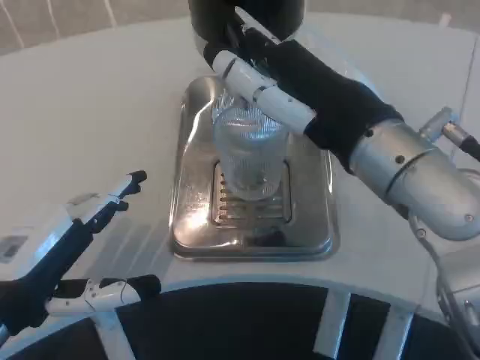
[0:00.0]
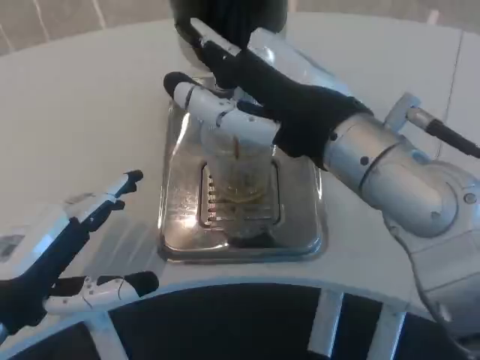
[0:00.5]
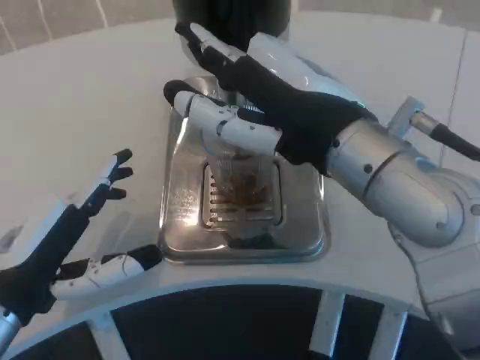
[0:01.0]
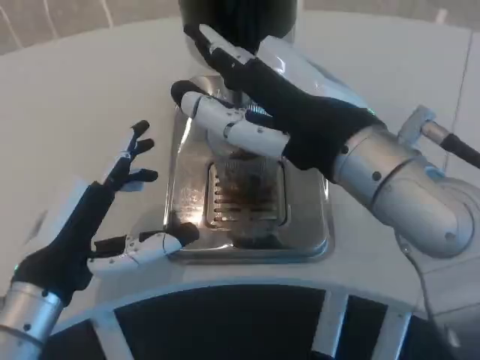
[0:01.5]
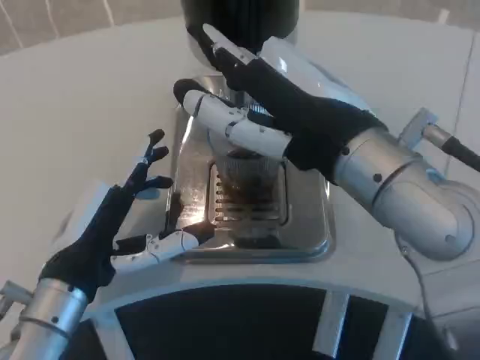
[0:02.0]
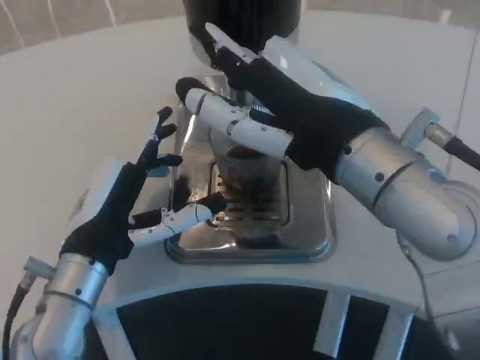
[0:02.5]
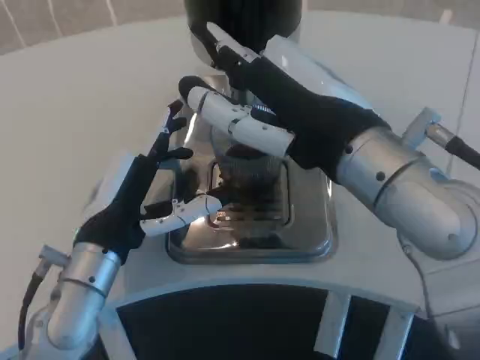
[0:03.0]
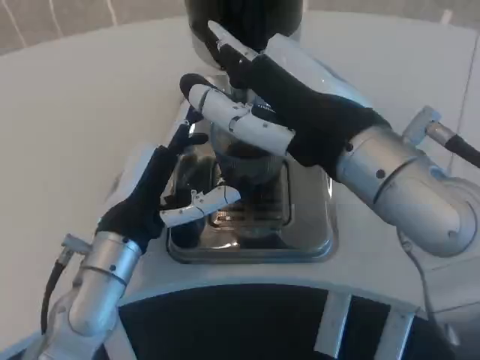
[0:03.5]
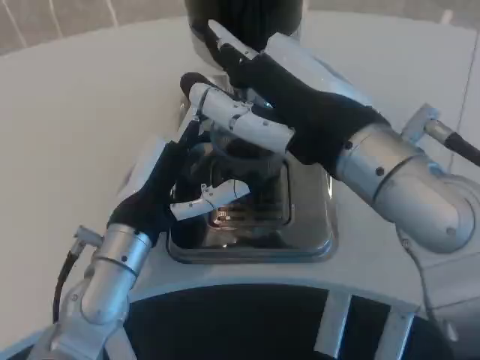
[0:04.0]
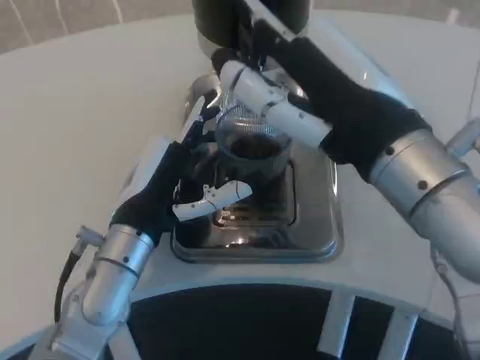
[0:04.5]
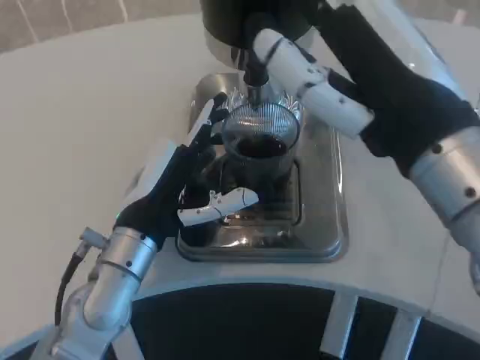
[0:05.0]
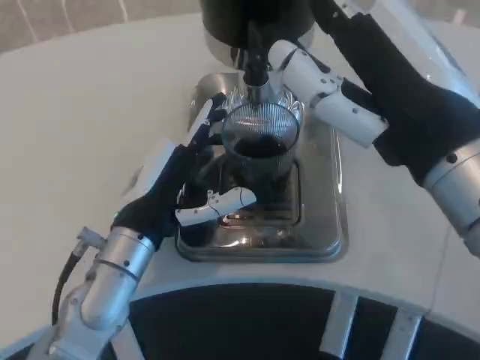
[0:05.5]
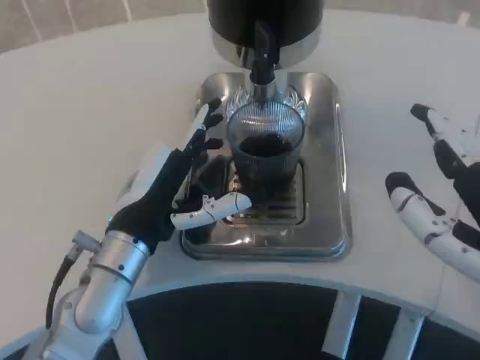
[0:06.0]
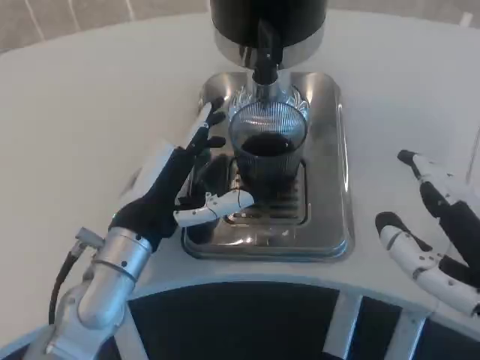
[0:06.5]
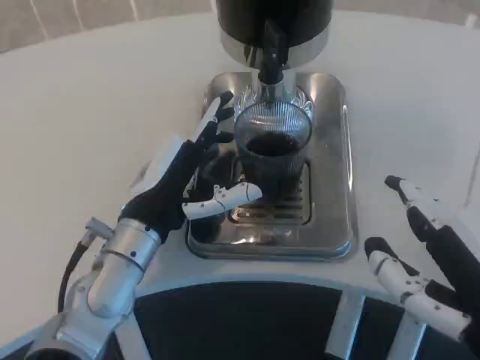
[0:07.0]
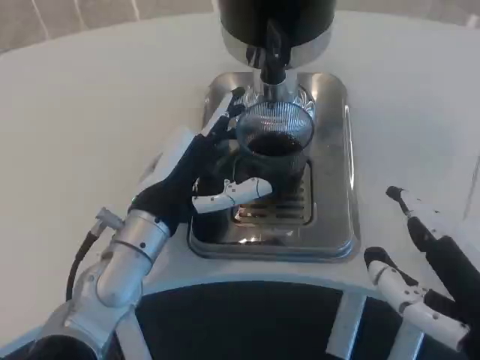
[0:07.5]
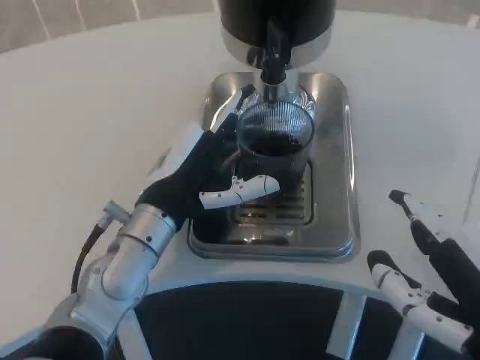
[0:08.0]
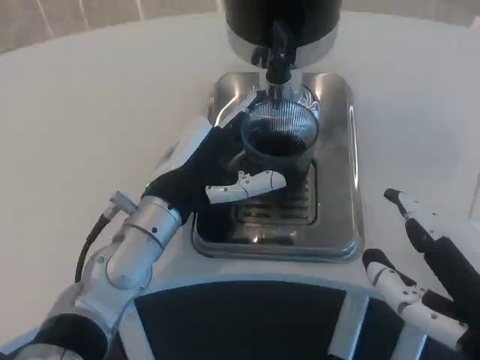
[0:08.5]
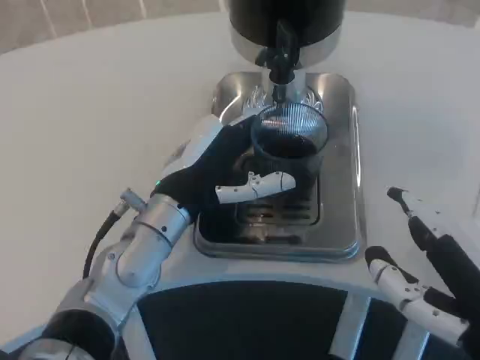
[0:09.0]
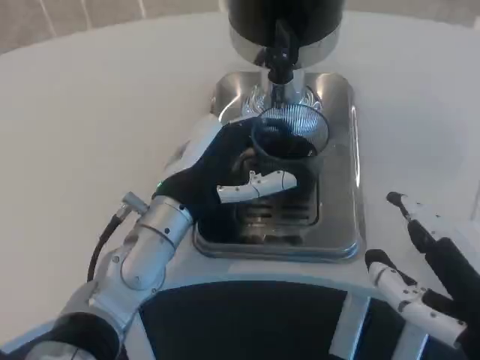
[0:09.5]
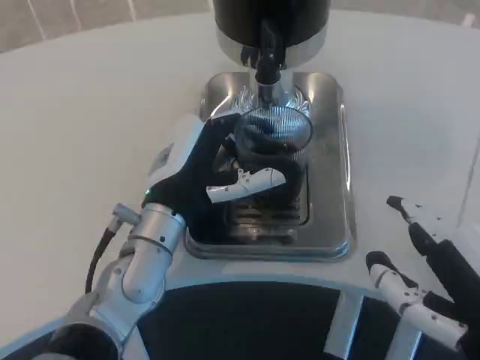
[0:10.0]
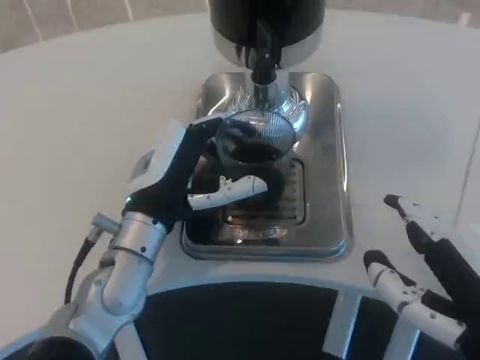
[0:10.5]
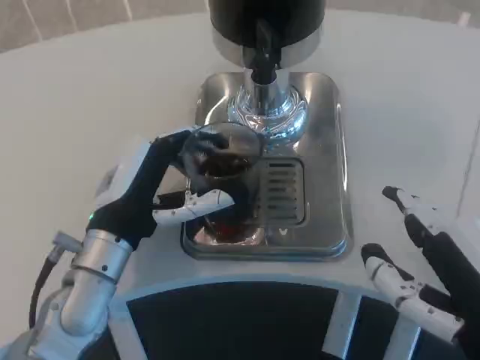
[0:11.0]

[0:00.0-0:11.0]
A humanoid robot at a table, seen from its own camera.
Task of the whole recording: Grasp the cup under the faucet to collect the drink, then remove the cup.
0:00.0 to 0:02.0: The left hand is displaced to the right by roughly 5 cm.
0:02.0 to 0:03.5: The left hand moves forward, some 5 cm.
0:03.5 to 0:05.5: The right hand ends up approximately 5 cm from where it was.
0:05.5 to 0:07.5: The right hand shifts approximately 10 cm downward and backward.
0:07.5 to 0:09.0: The hands stay close to where they were, moving slightly.
0:09.0 to 0:11.0: The left hand is displaced to the left by some 5 cm.

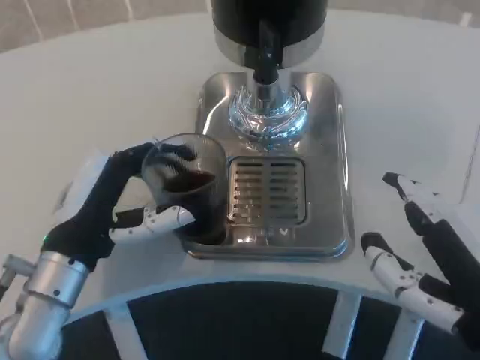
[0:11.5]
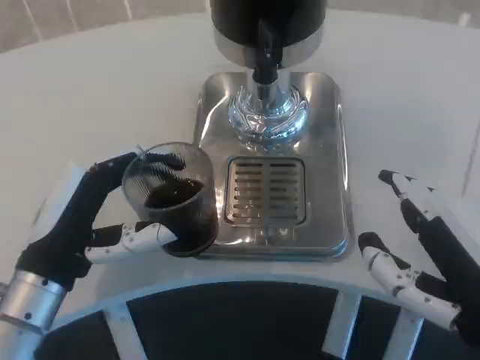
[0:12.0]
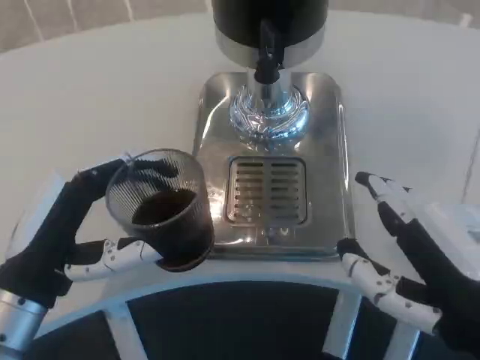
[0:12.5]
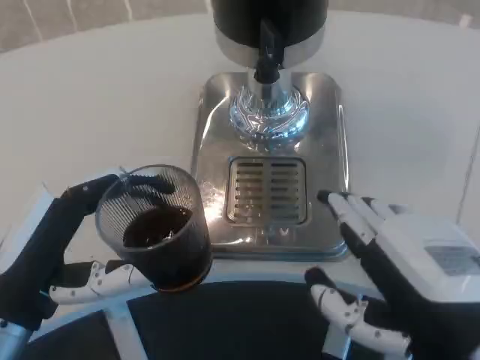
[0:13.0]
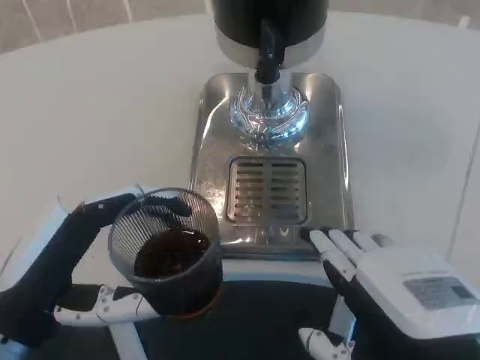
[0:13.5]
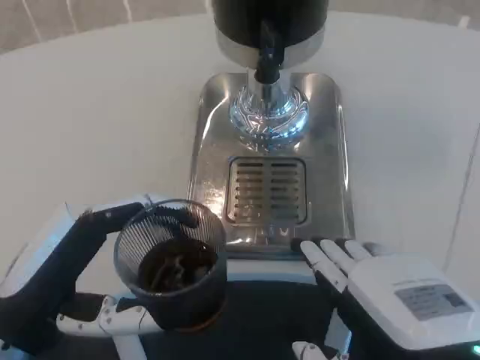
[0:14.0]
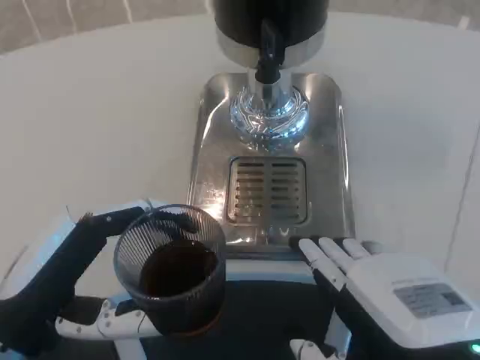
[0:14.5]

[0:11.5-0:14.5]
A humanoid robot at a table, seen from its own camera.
Task of the whole recording: Grasp the cup under the faucet to collect the drink, then remove the cup.
0:11.5 to 0:13.0: The left hand travels backward by approximately 5 cm.

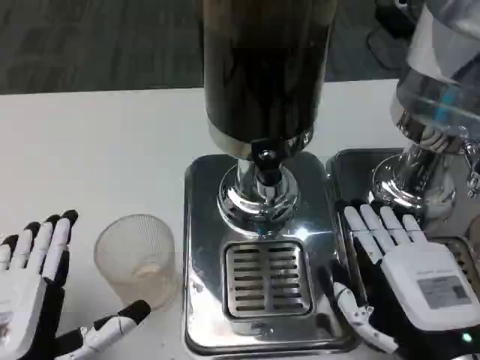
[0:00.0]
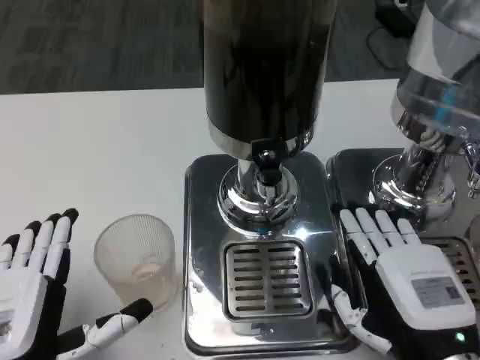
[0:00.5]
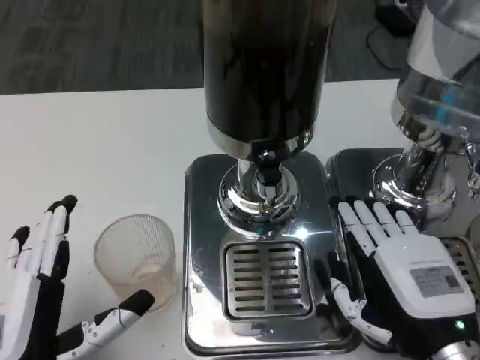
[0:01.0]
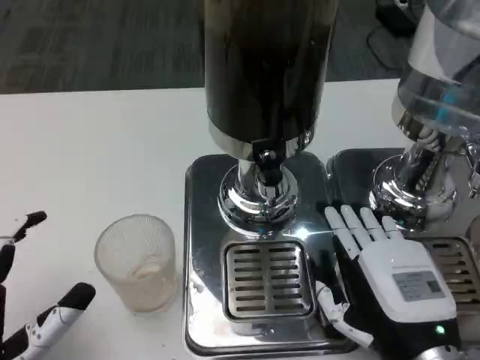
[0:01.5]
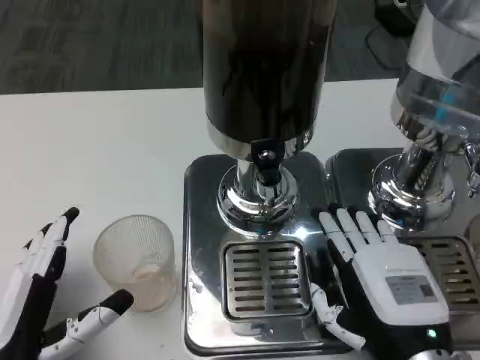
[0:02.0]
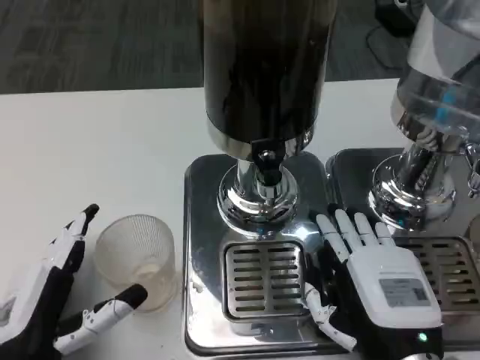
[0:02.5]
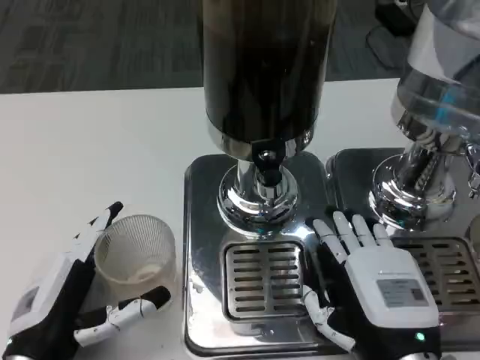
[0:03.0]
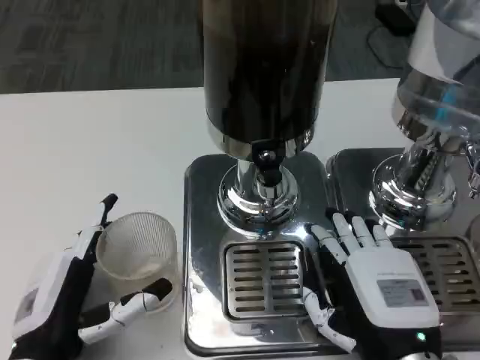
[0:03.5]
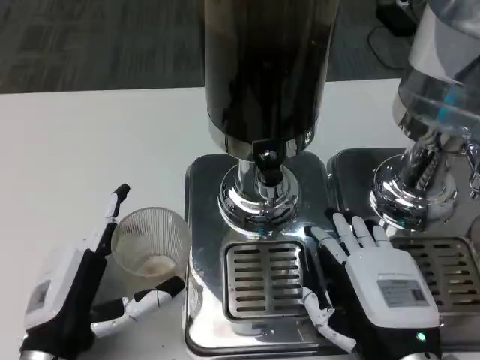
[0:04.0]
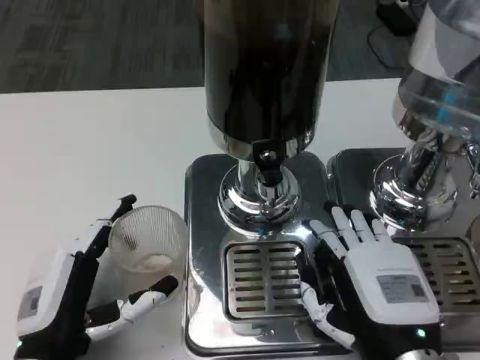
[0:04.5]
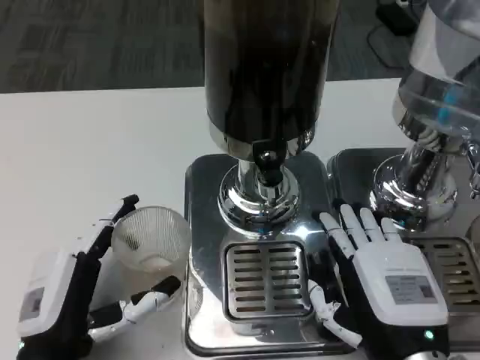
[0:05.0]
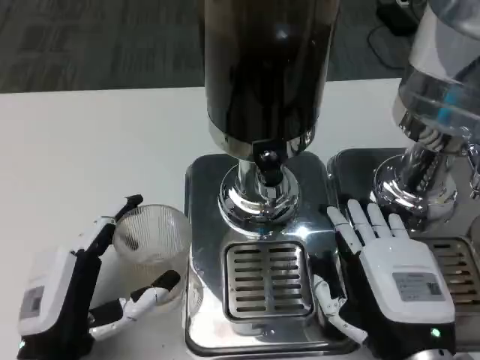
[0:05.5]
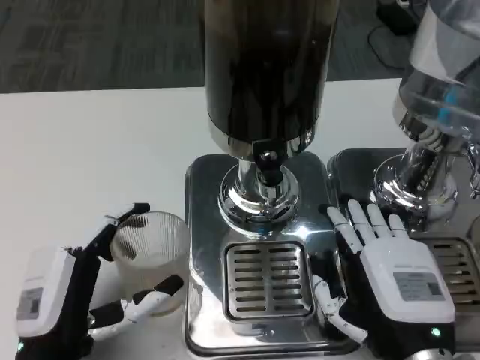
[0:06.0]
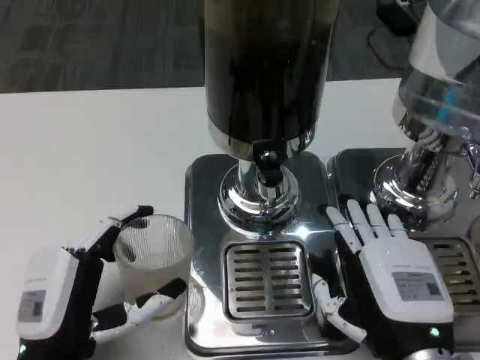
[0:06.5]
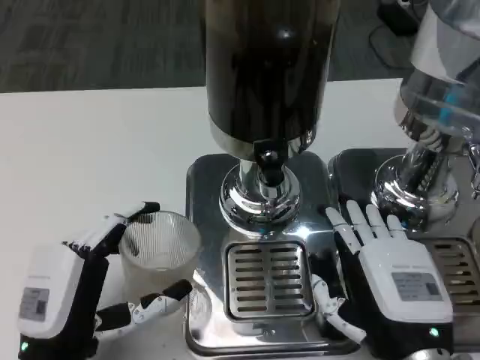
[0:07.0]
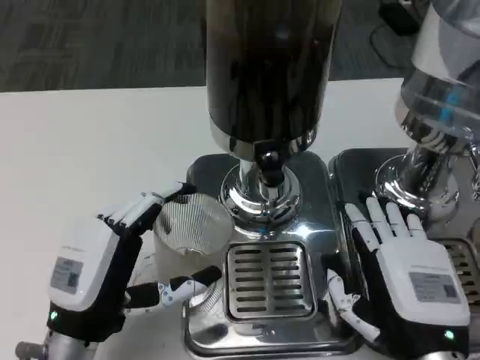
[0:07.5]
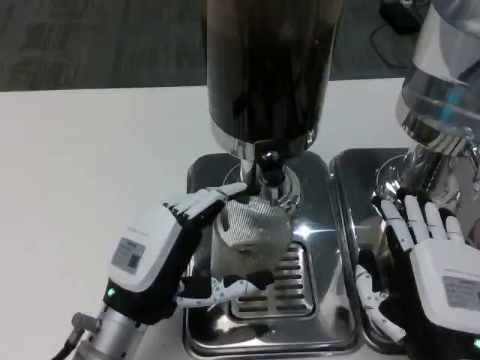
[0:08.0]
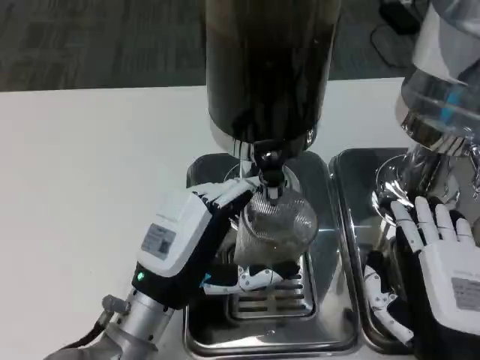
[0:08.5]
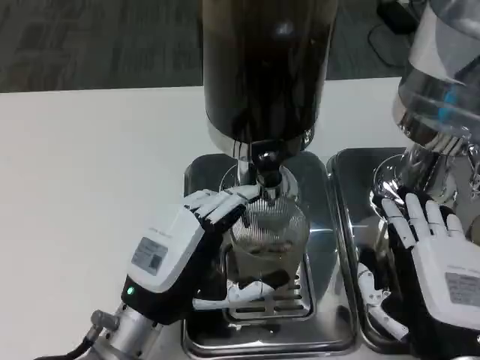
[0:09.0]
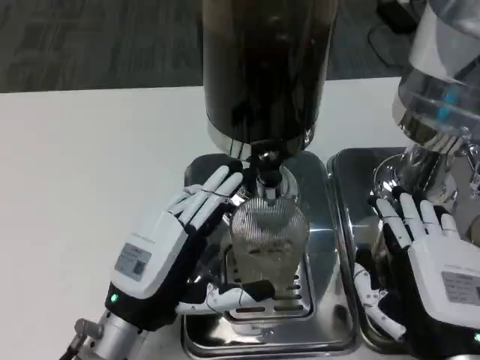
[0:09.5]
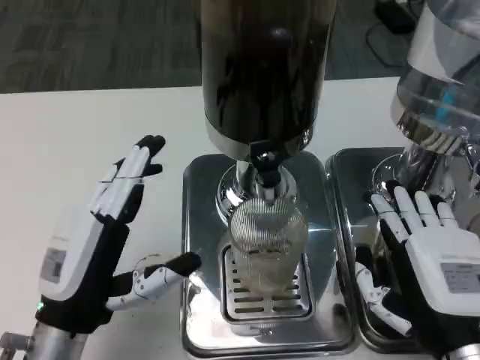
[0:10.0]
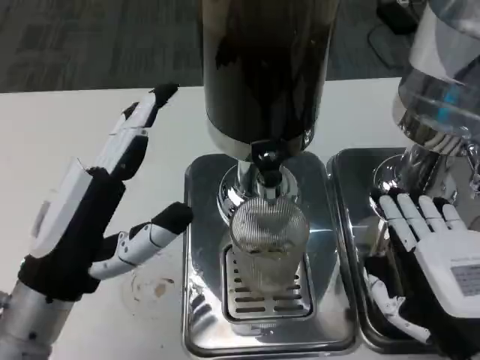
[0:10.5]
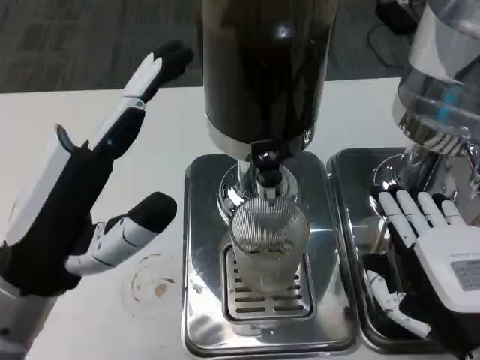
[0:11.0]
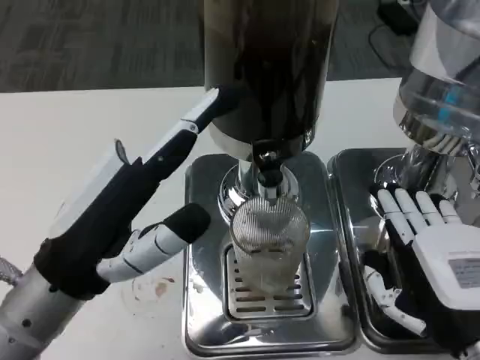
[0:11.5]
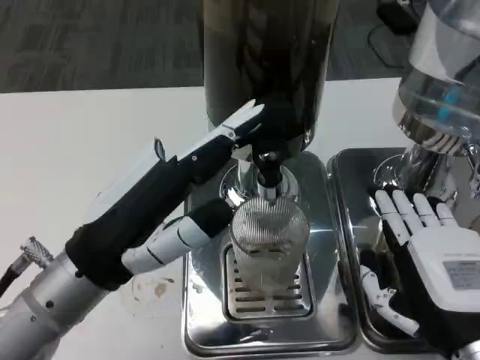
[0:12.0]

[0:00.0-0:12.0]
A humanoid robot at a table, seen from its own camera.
Task of the whole recording: Grasp the cup under the faucet to collect the drink, then remove the cup.
0:02.0 to 0:04.0: The left hand ends up some 5 cm from where it was.
0:04.0 to 0:06.0: There are only small adjustments of the hands.
0:06.0 to 0:08.0: The left hand shifts approximately 10 cm forward and to the right.
0:08.0 to 0:10.0: The left hand moves approximately 5 cm.
0:10.0 to 0:12.0: The left hand is displaced upward by roughly 10 cm.
